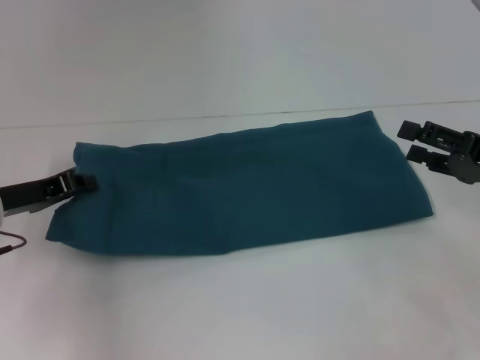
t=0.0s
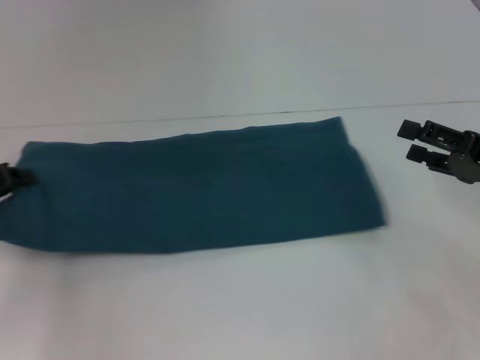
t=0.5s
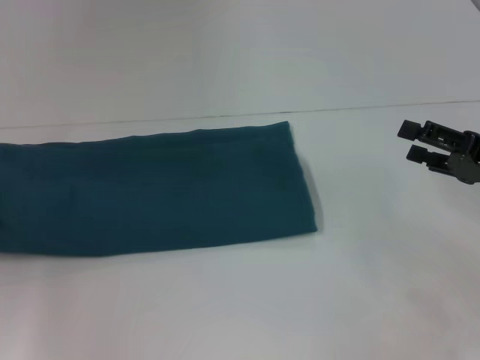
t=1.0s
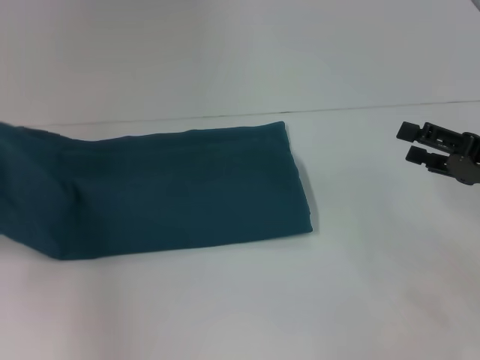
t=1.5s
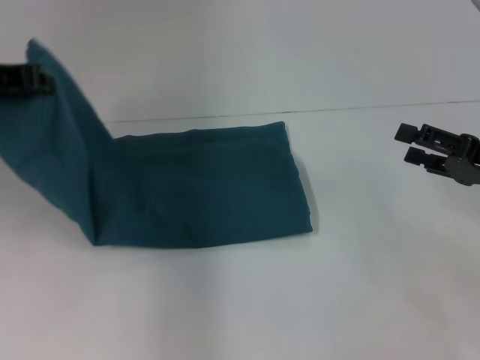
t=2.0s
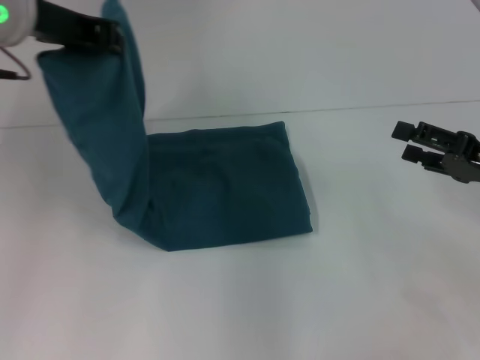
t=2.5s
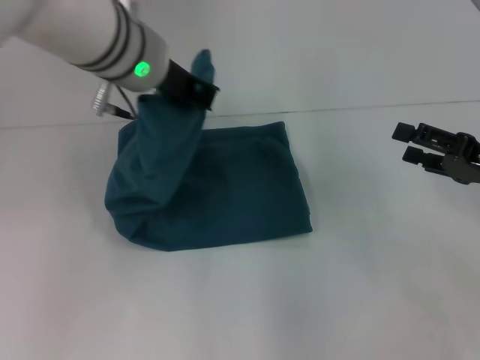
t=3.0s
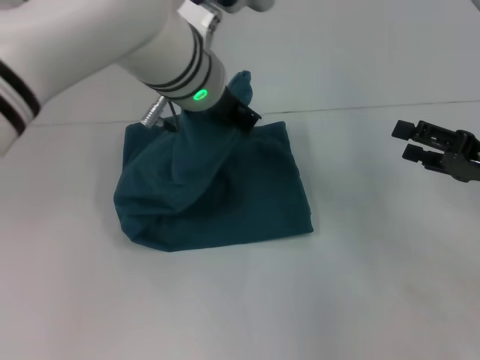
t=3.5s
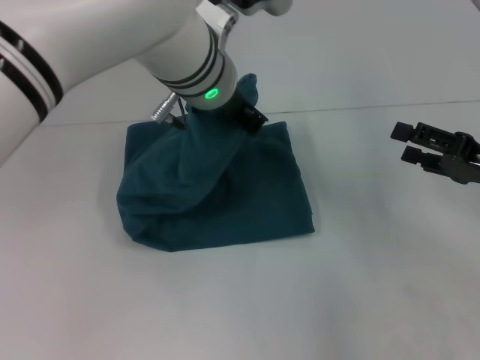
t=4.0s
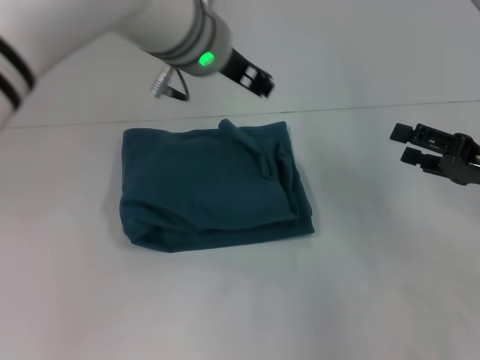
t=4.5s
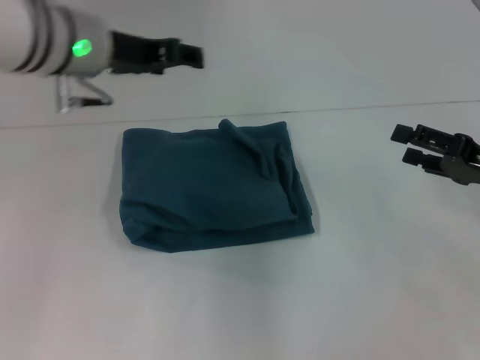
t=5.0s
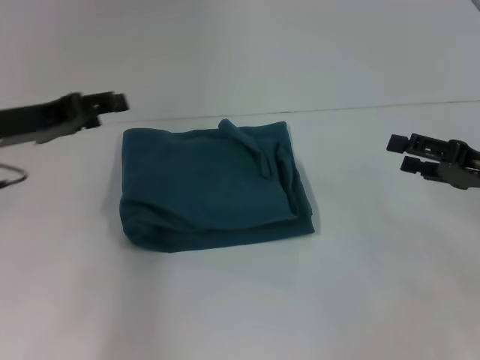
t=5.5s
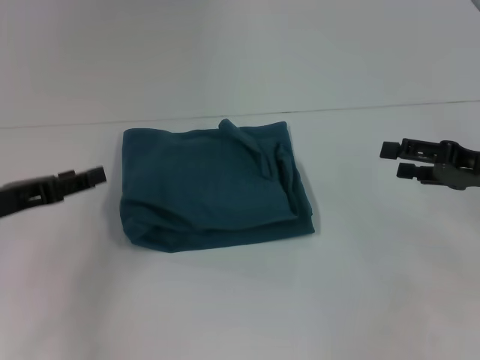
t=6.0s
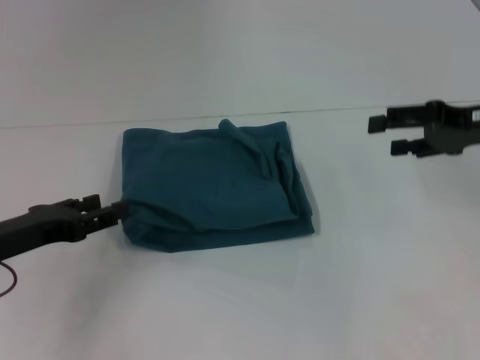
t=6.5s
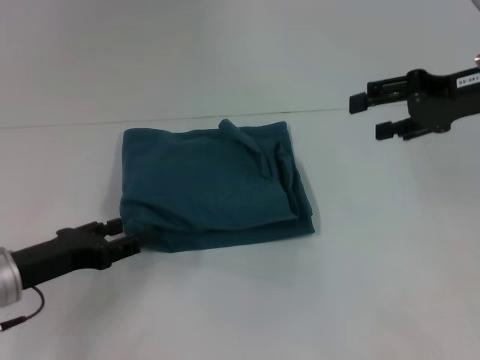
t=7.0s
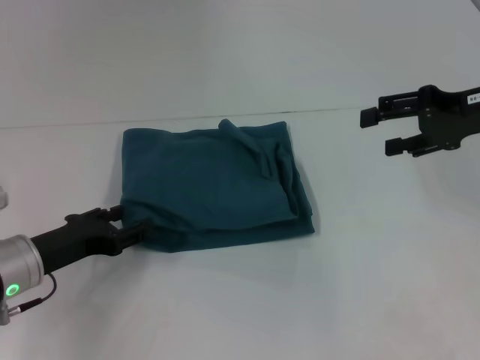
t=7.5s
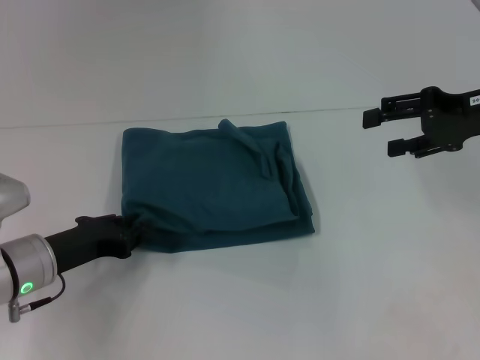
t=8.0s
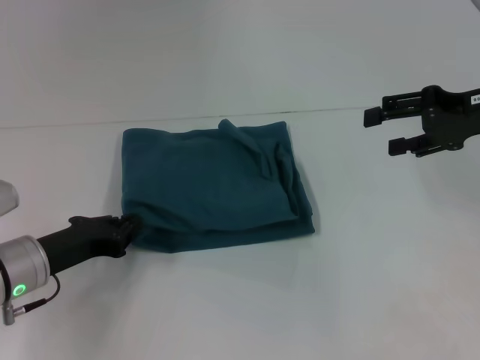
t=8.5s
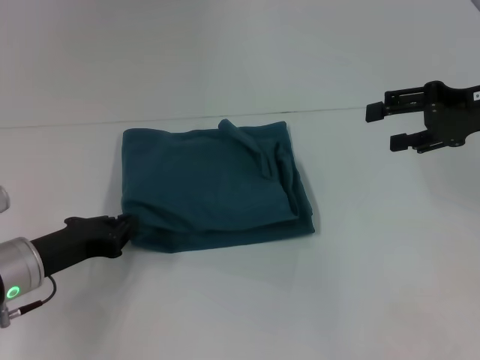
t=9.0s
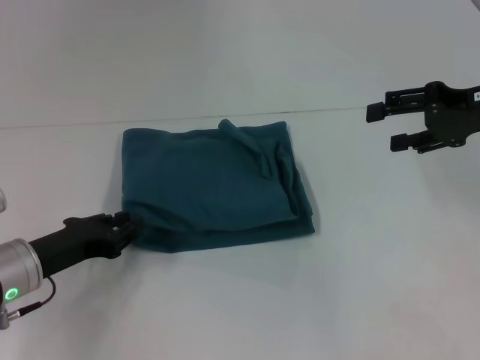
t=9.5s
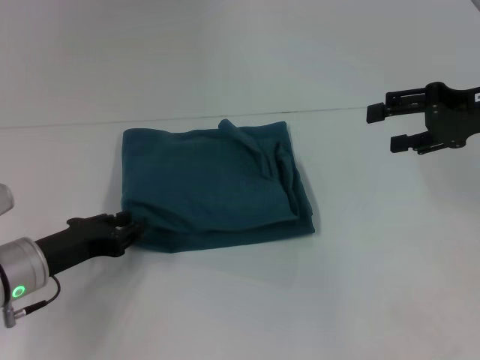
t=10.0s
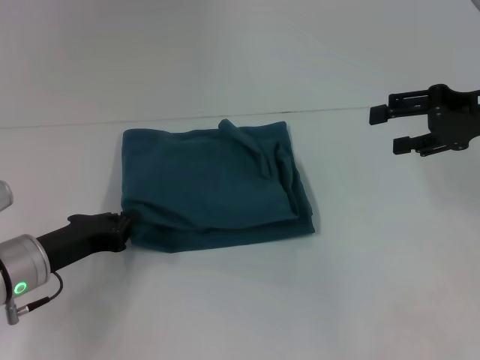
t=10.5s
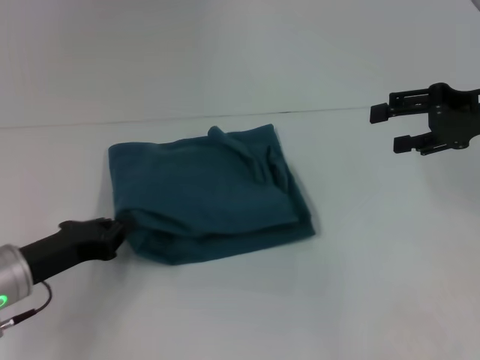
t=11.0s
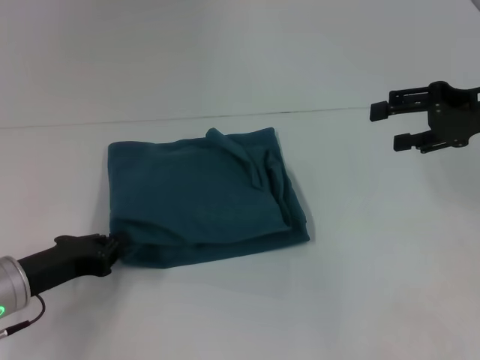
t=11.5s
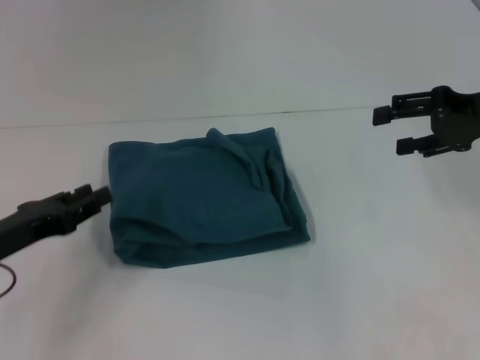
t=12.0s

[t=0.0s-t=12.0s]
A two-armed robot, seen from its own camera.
Step, t=0.0s to t=4.0s: Fold the clothes to the left.
t=0.0s to t=2.0s: The left gripper shifts some 15 cm upward.
t=2.0s to t=4.0s: The left gripper shifts some 25 cm to the right.
t=4.0s to t=6.0s: The left gripper is displaced to the left by roughly 25 cm, and opens.
t=6.0s to t=8.0s: The right gripper heads upward, covering approximately 10 cm, while the left gripper travels downward and to the right by some 10 cm.
t=8.0s to t=10.0s: The left gripper closes, then reopens.
t=10.0s to t=12.0s: The left gripper changes place by approximately 5 cm.

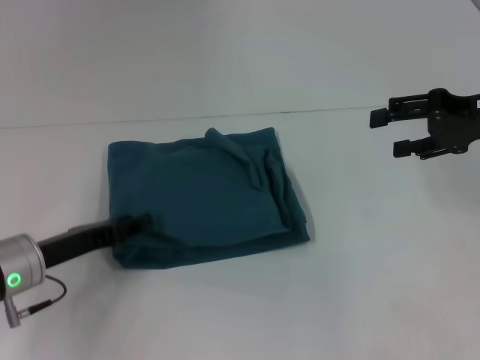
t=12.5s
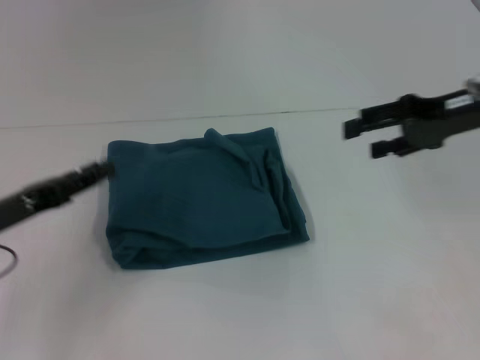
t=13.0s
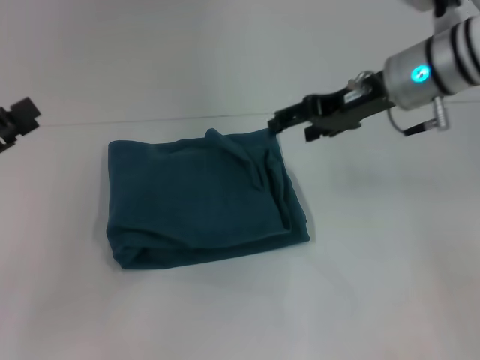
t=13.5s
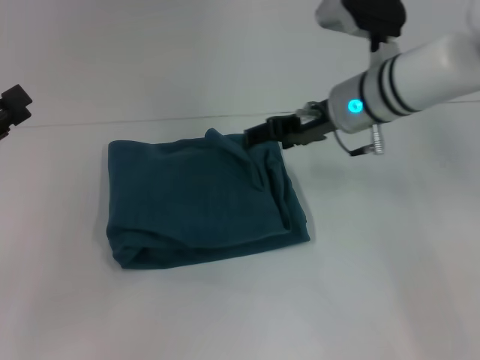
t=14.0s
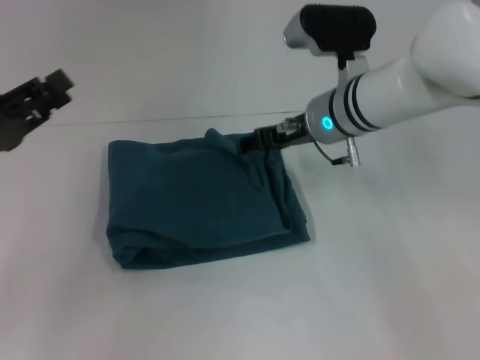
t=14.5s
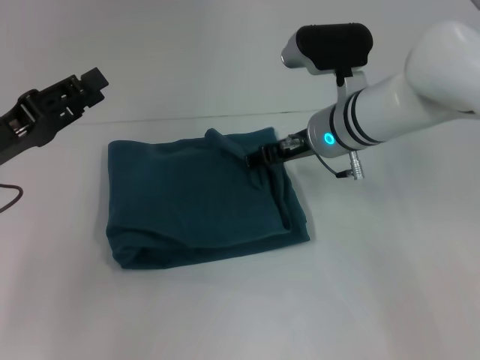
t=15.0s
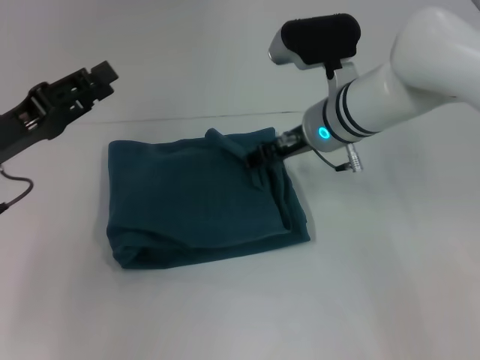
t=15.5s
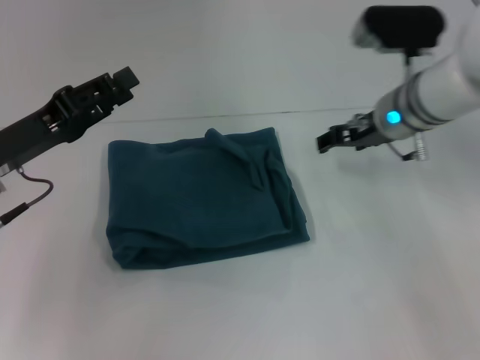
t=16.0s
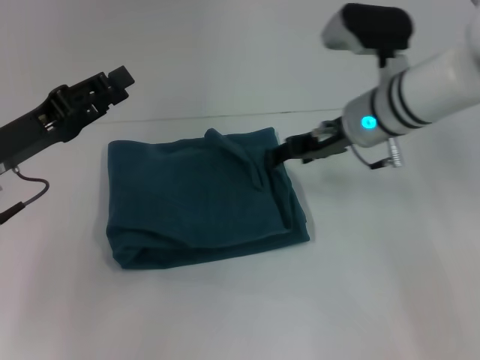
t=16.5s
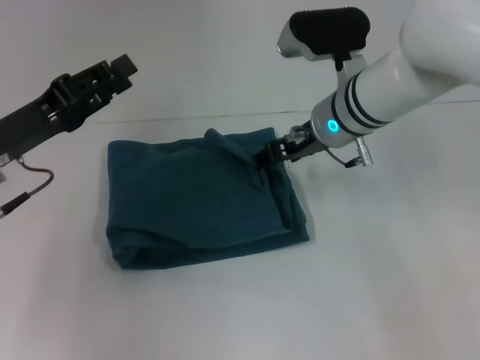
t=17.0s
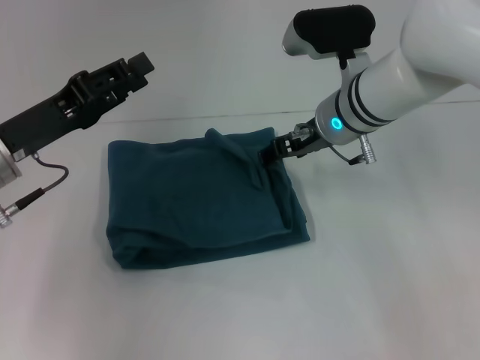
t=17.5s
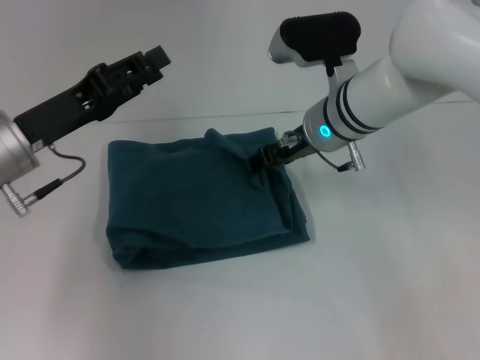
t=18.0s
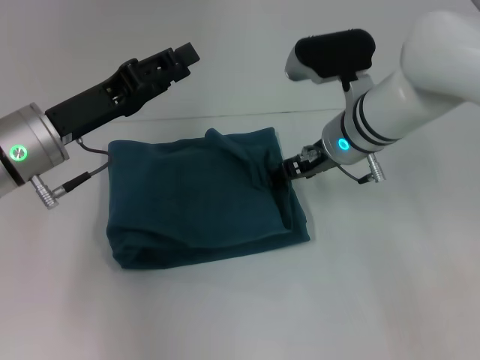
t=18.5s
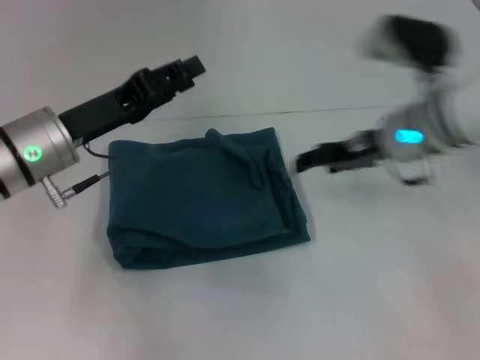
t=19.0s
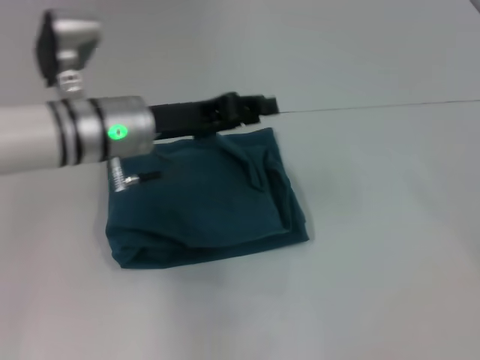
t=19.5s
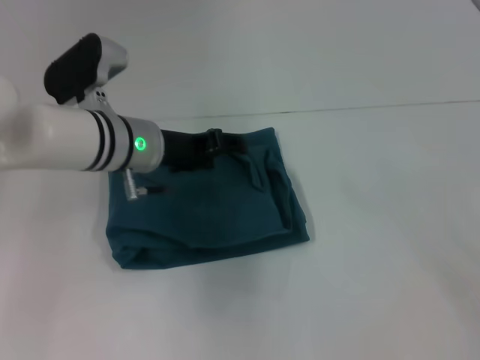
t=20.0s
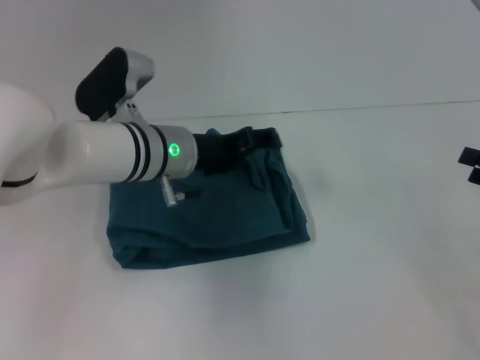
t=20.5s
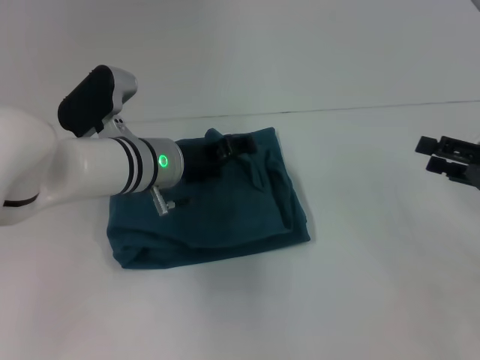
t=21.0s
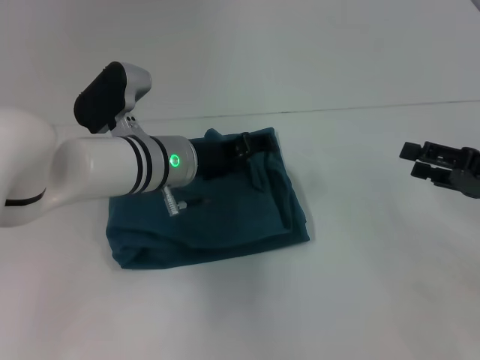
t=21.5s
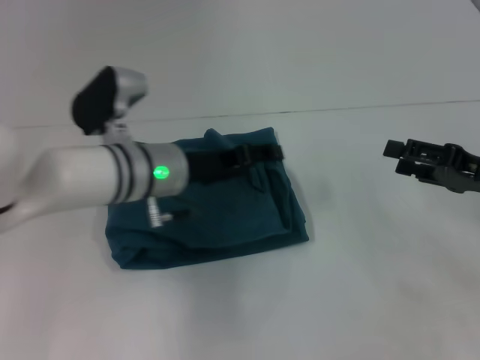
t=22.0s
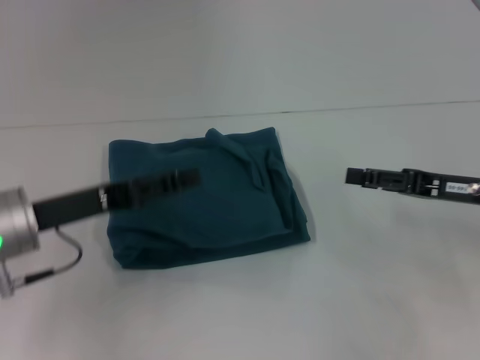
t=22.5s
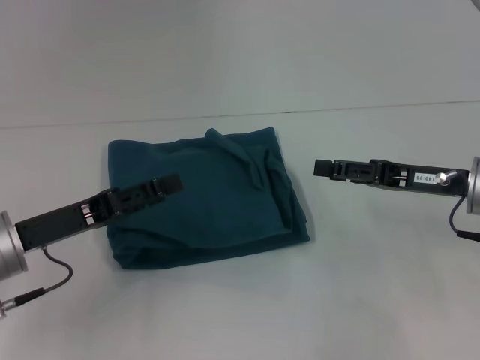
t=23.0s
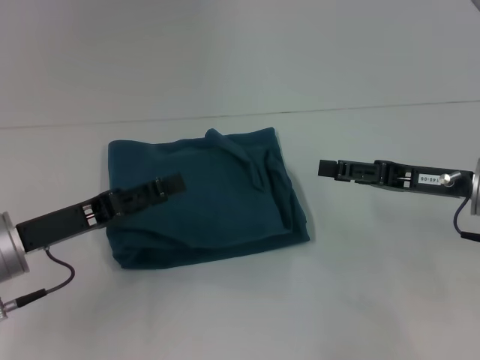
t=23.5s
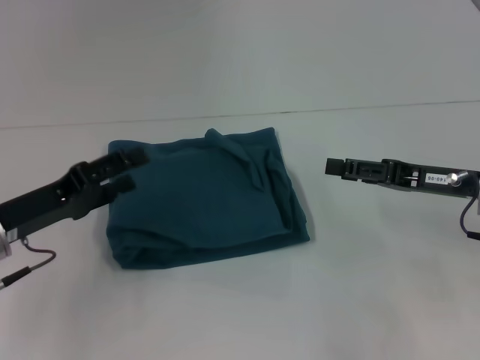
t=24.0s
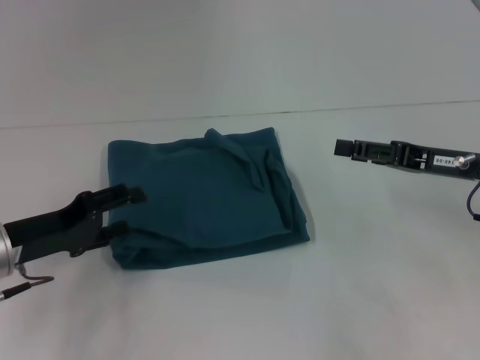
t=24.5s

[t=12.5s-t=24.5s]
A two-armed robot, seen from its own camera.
t=12.5s to t=14.5s: The right gripper travels to the left by some 20 cm, while the left gripper moves upward and to the left, approximately 10 cm.
t=16.5s to t=18.5s: The left gripper shifts about 5 cm to the right.
t=18.5s to t=20.5s: The left gripper moves to the right, about 10 cm, and opens its fingers. Meanwhile the right gripper shifts roughly 30 cm to the right and backward.
t=20.5s to t=22.5s: The left gripper moves to the left and backward, approximately 15 cm. Meanwhile the right gripper shifts approximately 10 cm to the left.
t=22.5s to t=24.5s: The left gripper shifts by approximately 5 cm.

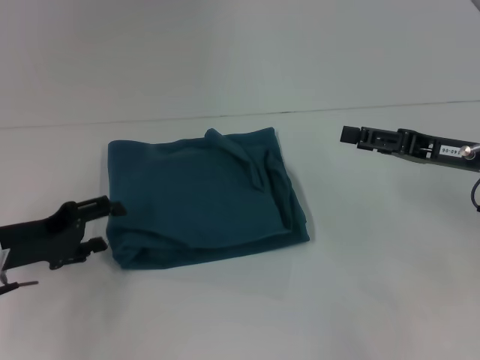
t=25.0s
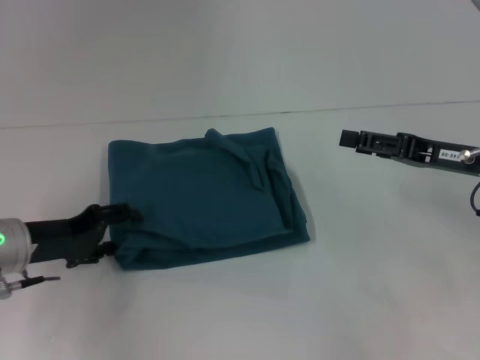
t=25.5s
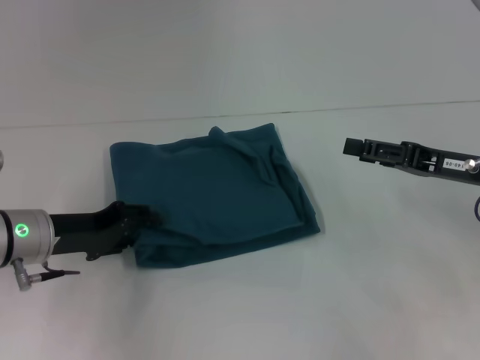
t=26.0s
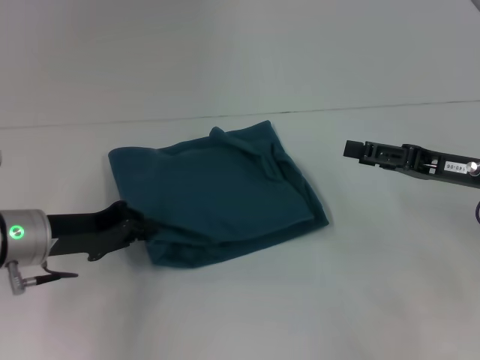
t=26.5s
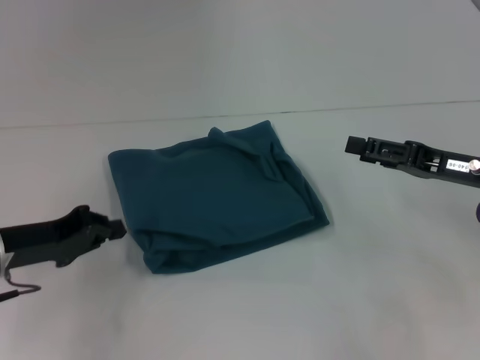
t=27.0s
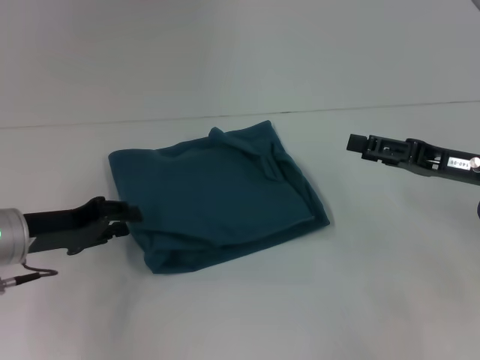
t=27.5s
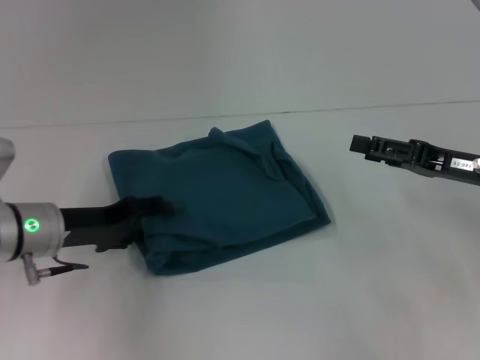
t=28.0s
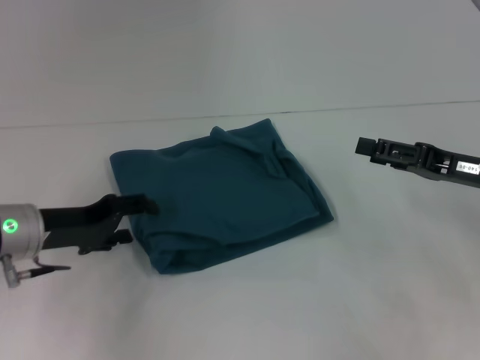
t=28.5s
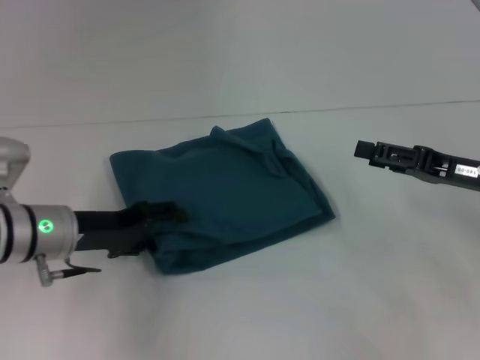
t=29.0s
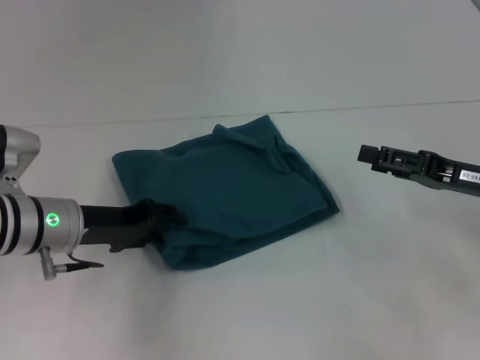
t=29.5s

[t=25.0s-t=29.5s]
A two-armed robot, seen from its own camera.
t=25.0s to t=27.0s: The left gripper closes its fingers.
t=27.0s to t=29.5s: The left gripper travels to the right by roughly 5 cm, and opens up.
